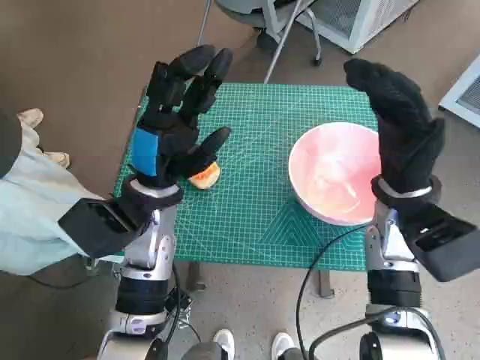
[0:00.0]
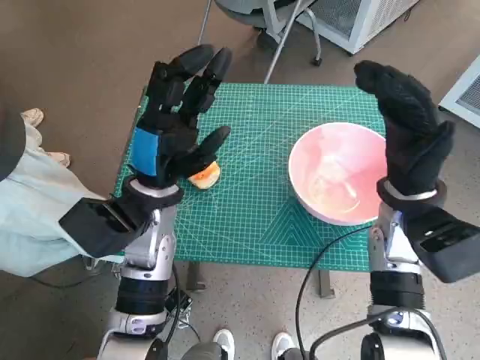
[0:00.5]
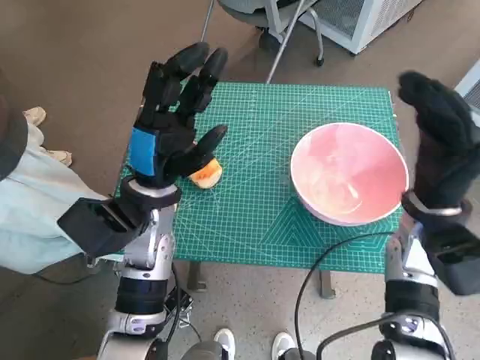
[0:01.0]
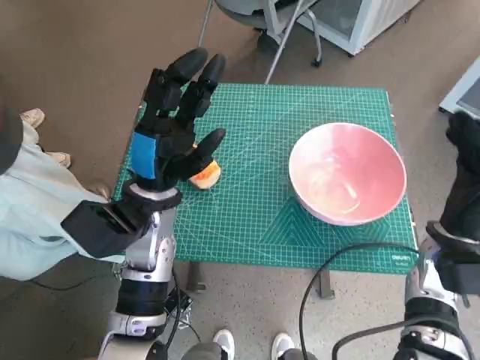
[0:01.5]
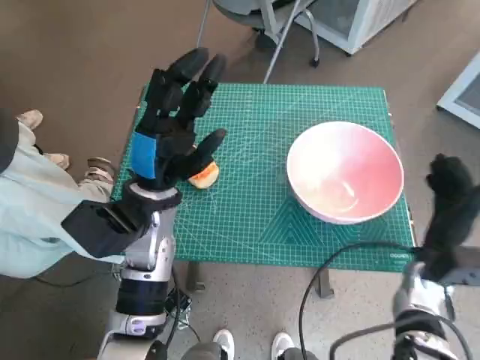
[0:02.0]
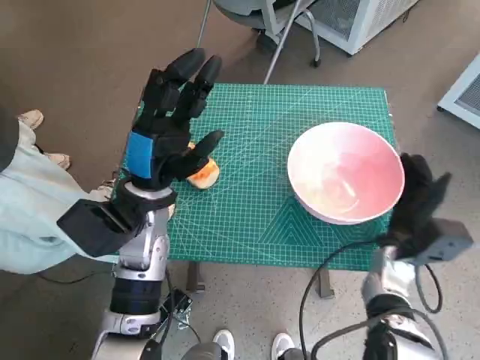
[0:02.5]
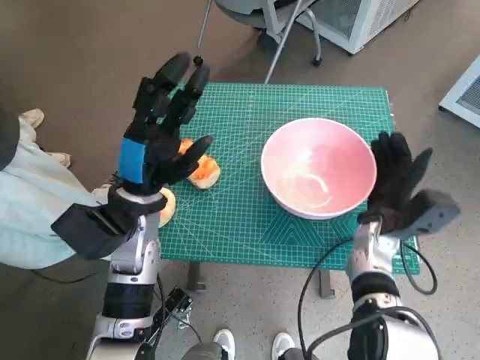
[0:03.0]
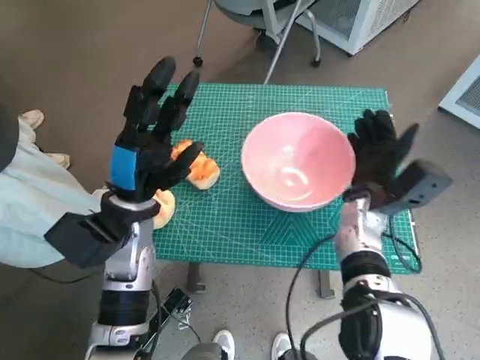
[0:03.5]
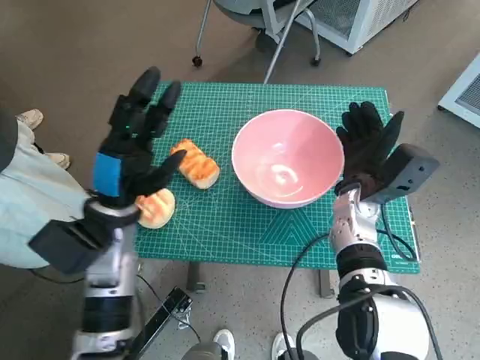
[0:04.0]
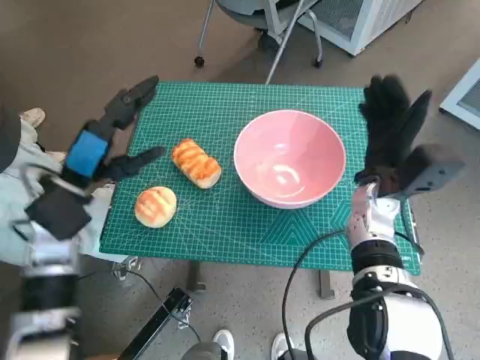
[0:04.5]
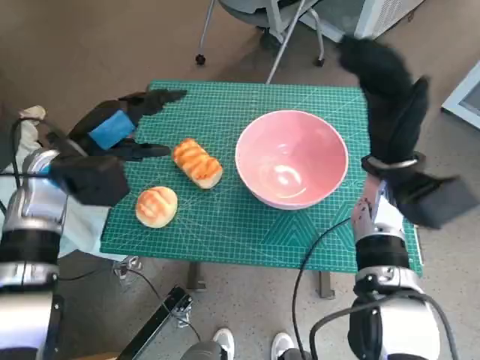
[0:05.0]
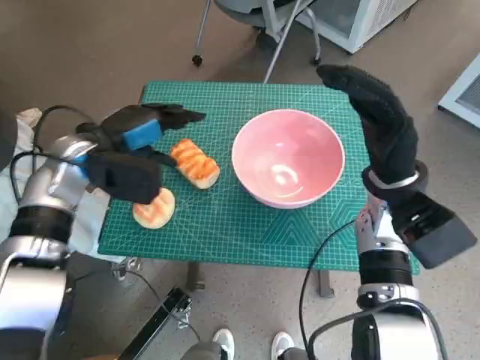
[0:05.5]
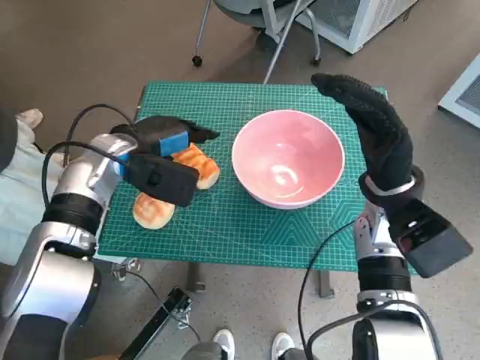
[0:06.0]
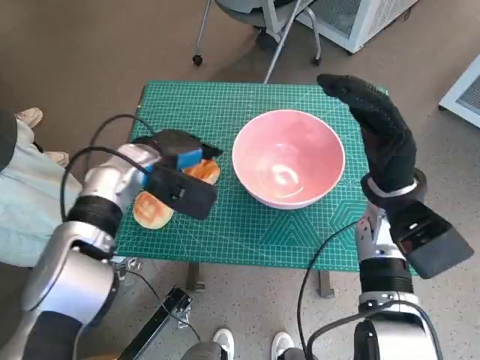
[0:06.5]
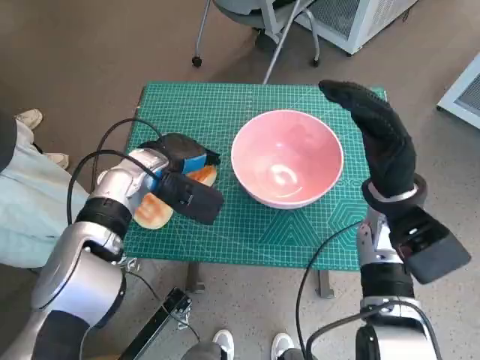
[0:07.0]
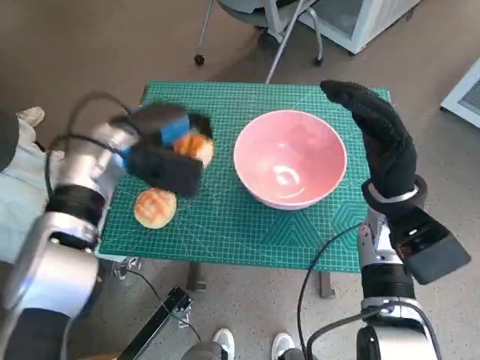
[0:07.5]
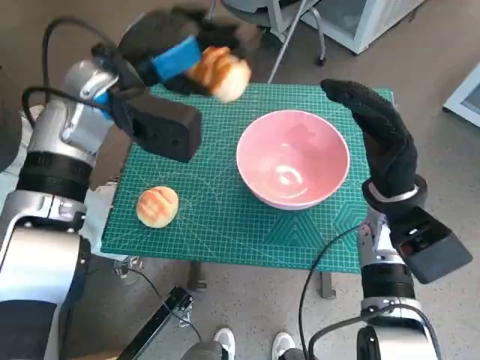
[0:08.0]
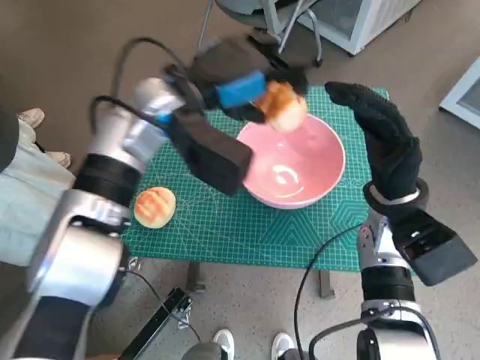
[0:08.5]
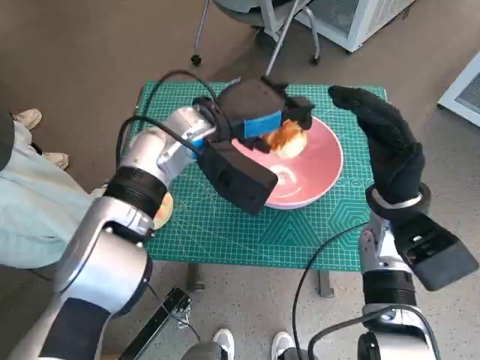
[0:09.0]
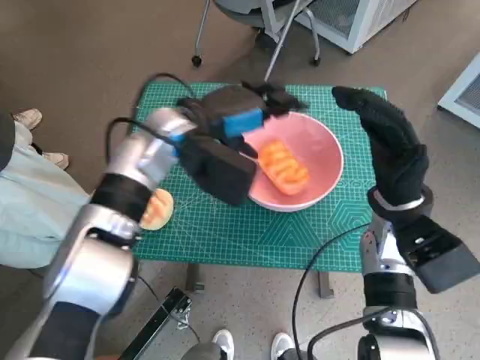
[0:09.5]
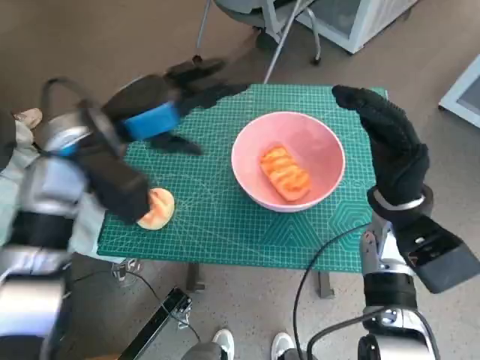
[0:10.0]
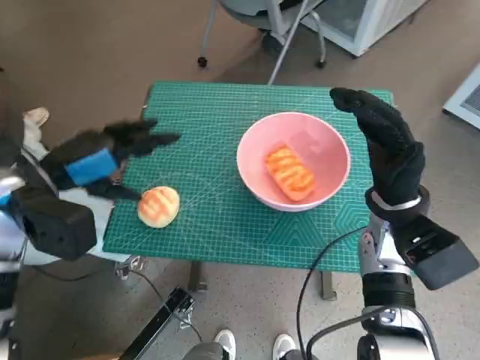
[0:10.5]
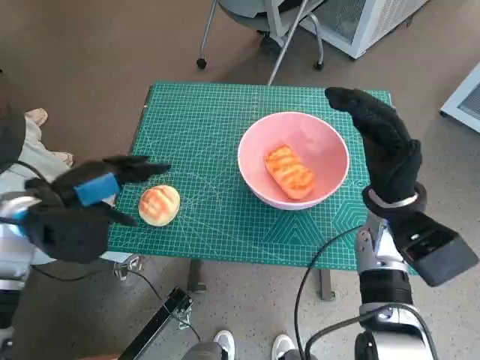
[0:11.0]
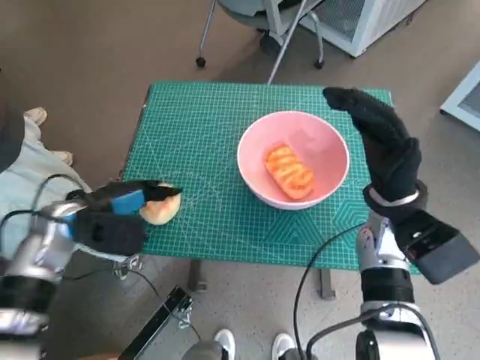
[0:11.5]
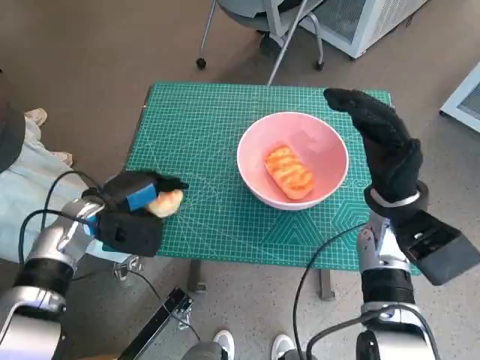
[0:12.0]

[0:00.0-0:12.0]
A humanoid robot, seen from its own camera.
Task of the whole recording: Push the bowl to the center of the table and put the bread into the bowl.
Step, 0:00.0 to 0:04.0: Move the pink bowl to the center of table with right hand.
Step, 0:04.5 to 0:07.0: Grasp the long bread with left hand.
Step, 0:07.5 to 0:09.0: Place the long bread in pink bowl with left hand.
Step, 0:09.5 to 0:11.5: Grasp the round bread with left hand.
0:02.0 to 0:04.0: The right hand shifts roughly 15 cm to the left, forward and upward. The left hand shifts by some 5 cm.
0:04.0 to 0:06.0: The right hand shifts approximately 5 cm upward. The left hand moves forward, approximately 10 cm.
0:06.0 to 0:08.0: The left hand travels upward by roughly 10 cm.
0:08.0 to 0:10.0: The left hand travels to the right and back again, about 10 cm each way.
0:10.0 to 0:12.0: The left hand travels downward and to the left by approximately 15 cm.

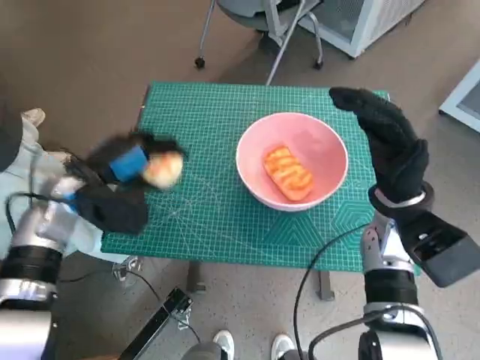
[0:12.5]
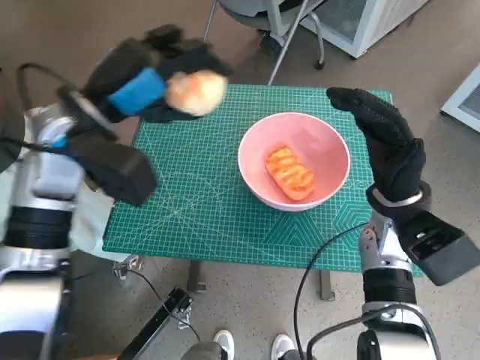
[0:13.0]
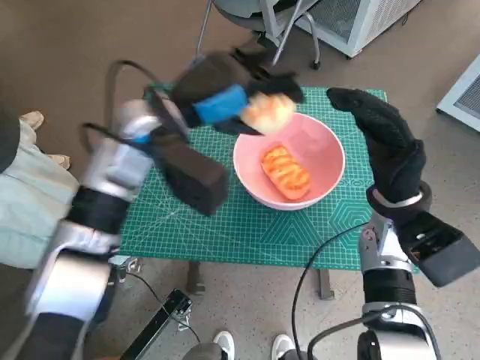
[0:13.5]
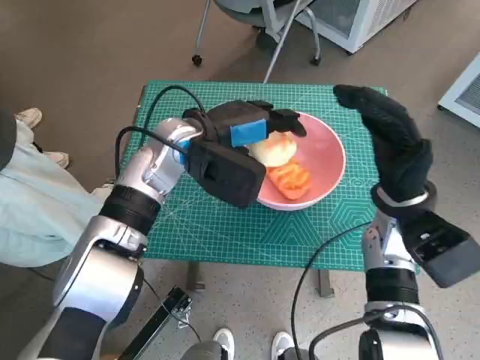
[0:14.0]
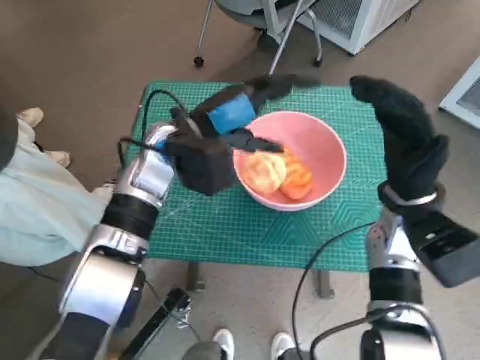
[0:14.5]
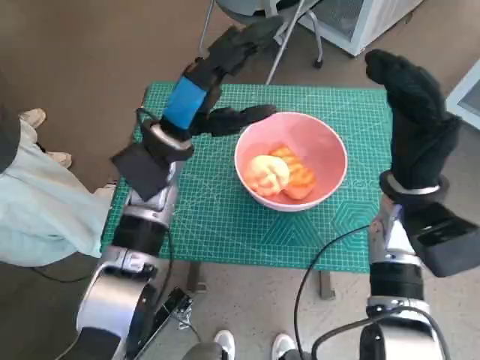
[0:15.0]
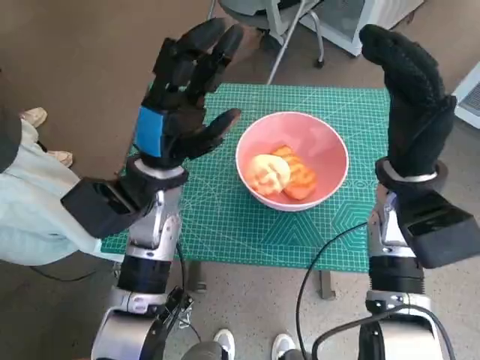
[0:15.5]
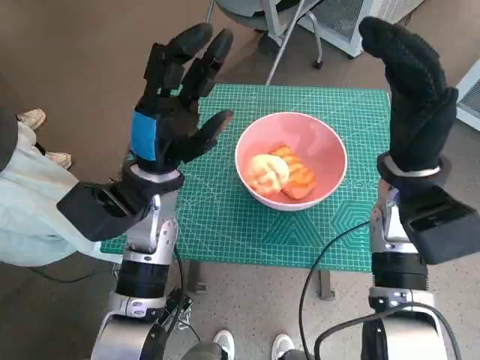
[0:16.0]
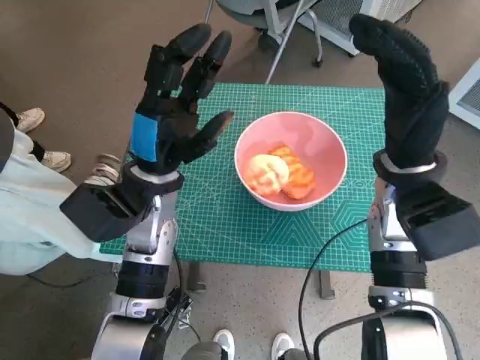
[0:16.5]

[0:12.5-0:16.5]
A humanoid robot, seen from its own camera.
Task of the whole recording: Push the bowl to the center of the table and put the bread into the bowl.
Step, 0:12.5 to 0:14.0: Place the round bread in pink bowl with left hand.
0:12.5 to 0:14.5: The left hand heads to the right and upward, covering roughly 15 cm.
0:14.5 to 0:16.5: The right hand changes place by approximately 5 cm; the left hand moves backward, about 5 cm.

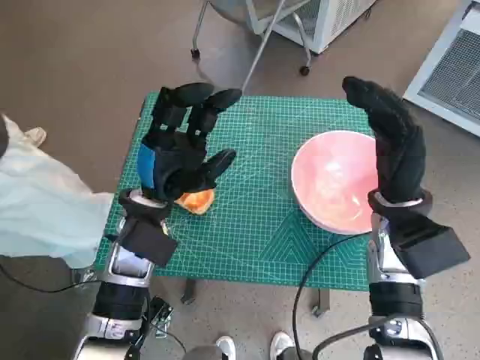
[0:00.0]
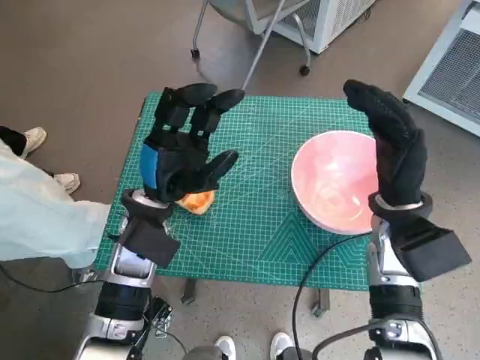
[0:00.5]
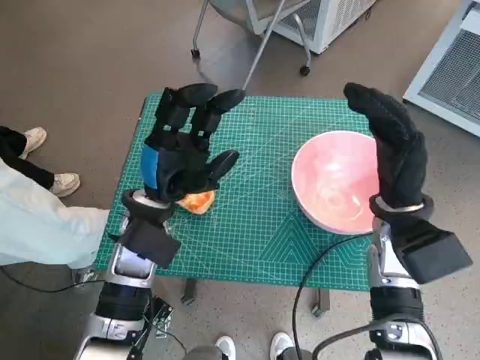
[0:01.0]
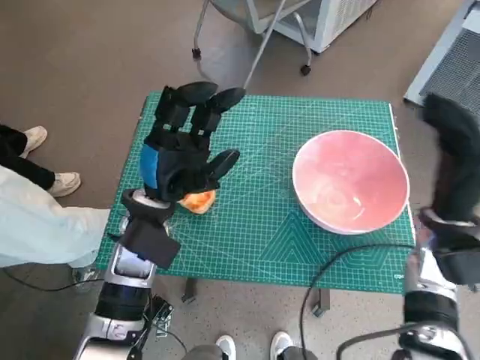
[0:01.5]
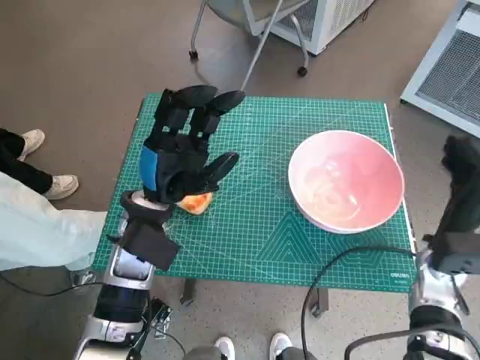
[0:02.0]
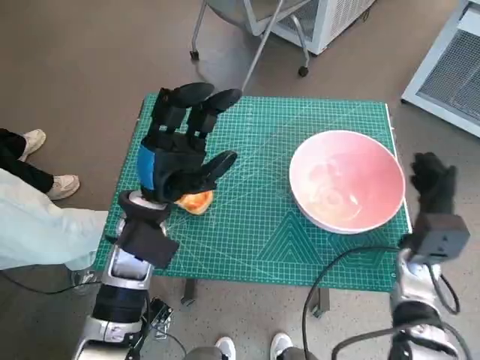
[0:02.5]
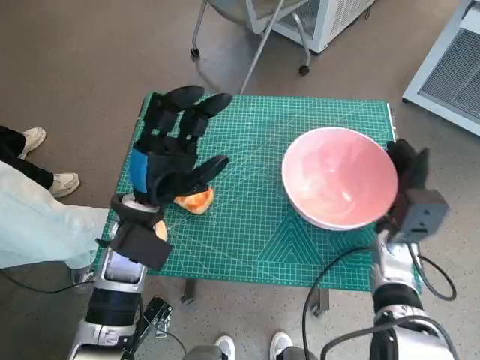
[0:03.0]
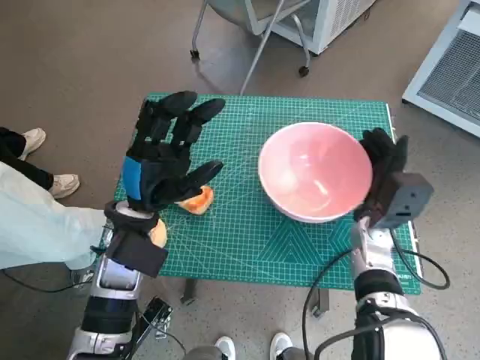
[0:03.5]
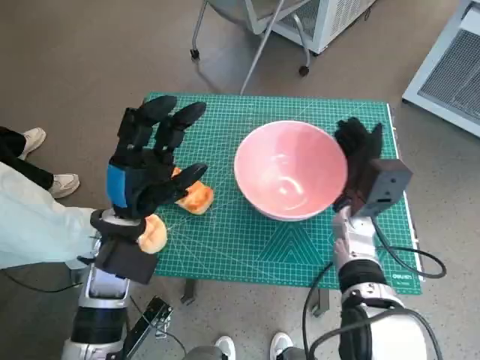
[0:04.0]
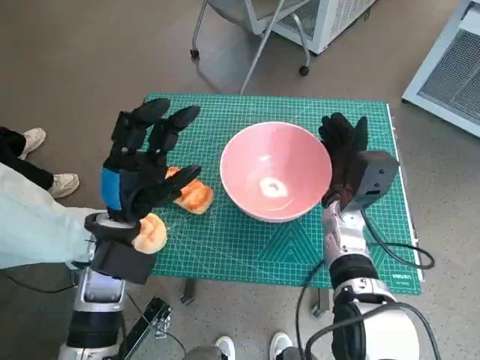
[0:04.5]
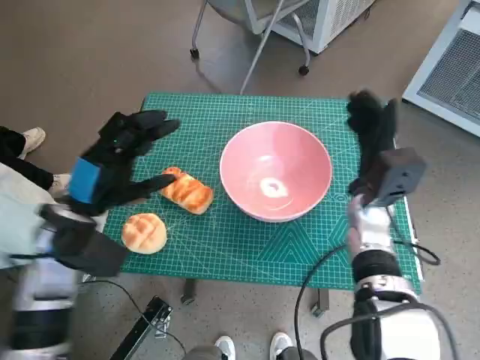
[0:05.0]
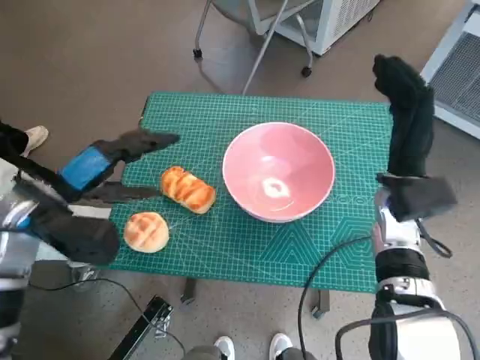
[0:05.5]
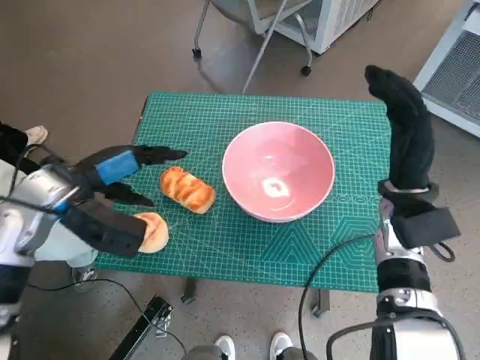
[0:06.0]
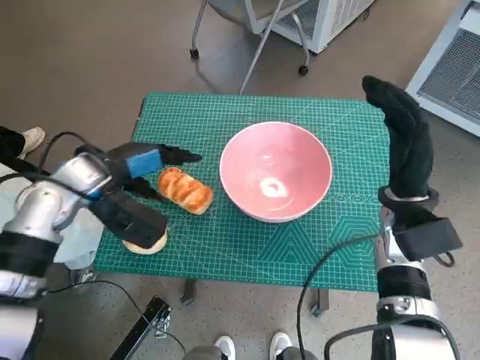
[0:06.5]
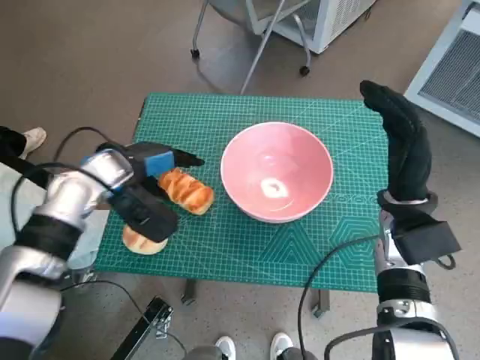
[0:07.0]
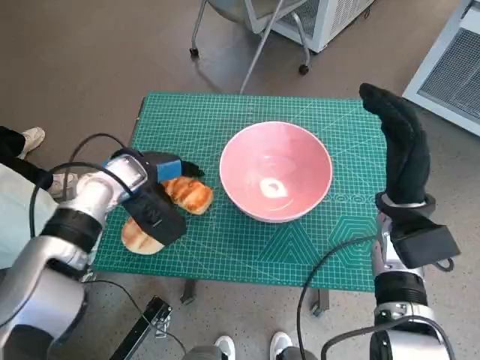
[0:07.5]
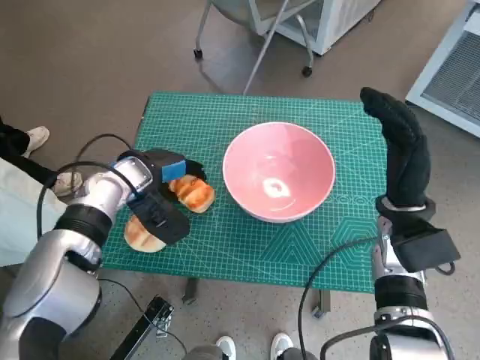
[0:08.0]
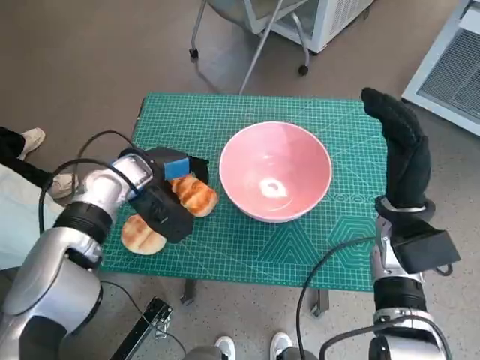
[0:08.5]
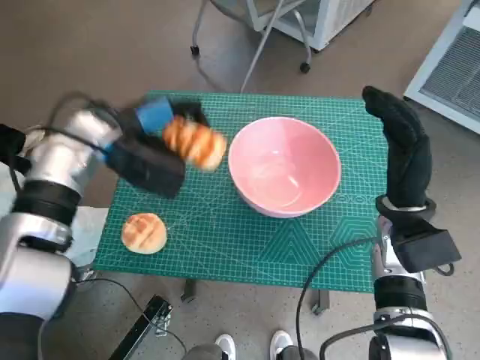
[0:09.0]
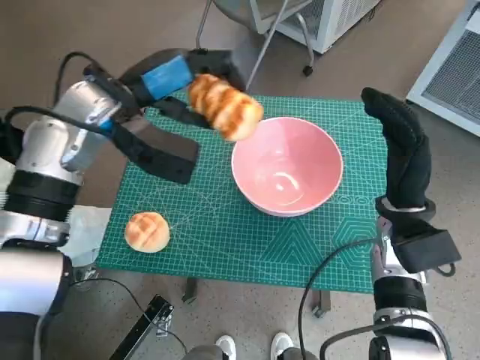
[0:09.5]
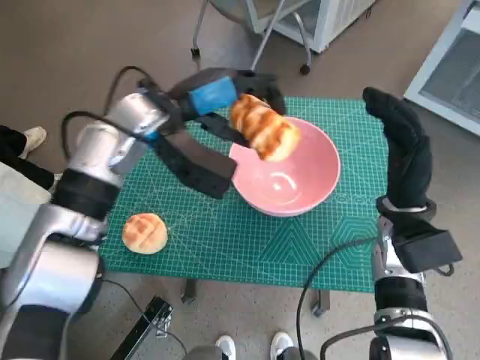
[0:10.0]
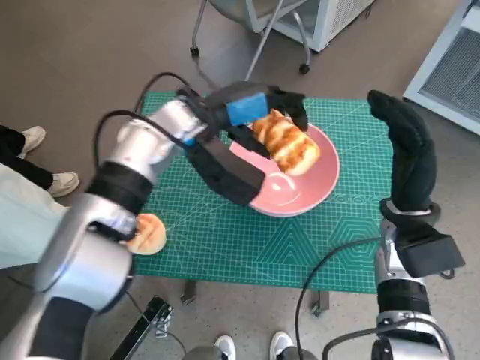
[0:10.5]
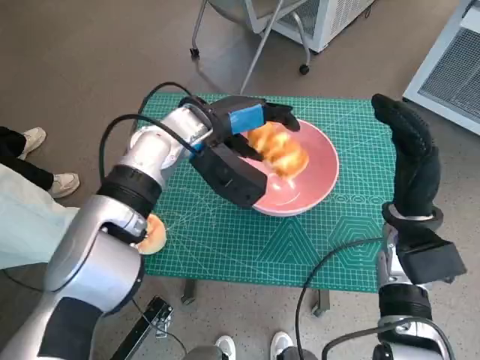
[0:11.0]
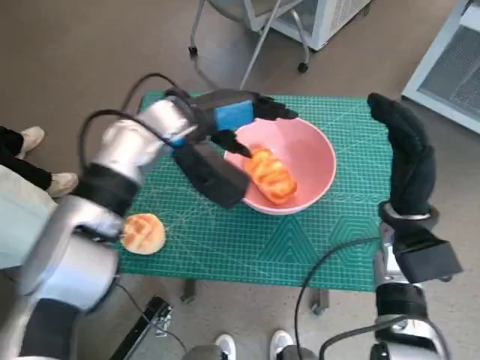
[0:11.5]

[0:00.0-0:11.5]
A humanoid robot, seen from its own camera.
Task of the whole recording: Push the bowl to the center of the table and put the bread into the bowl.
Step, 0:00.0 to 0:04.5: Move the pink bowl to the center of table with right hand.
Step, 0:05.0 to 0:08.0: Grasp the long bread with left hand.
Step, 0:08.5 to 0:11.5: Place the long bread in pink bowl with left hand.
0:02.0 to 0:04.0: The right hand goes some 15 cm to the left and forward.
0:04.0 to 0:06.0: The left hand moves to the left and upward, about 10 cm, while the right hand heads upward, covering approximately 5 cm.
0:06.0 to 0:07.5: The left hand shifts approximately 10 cm forward, downward and to the right.
0:07.5 to 0:09.5: The left hand travels upward by some 10 cm.
0:09.5 to 0:11.5: The left hand goes some 5 cm to the right.
